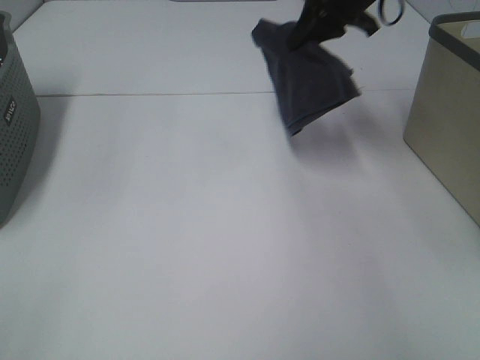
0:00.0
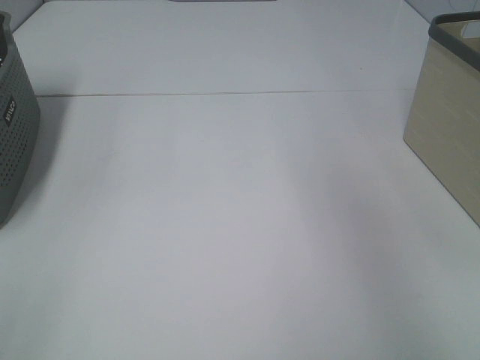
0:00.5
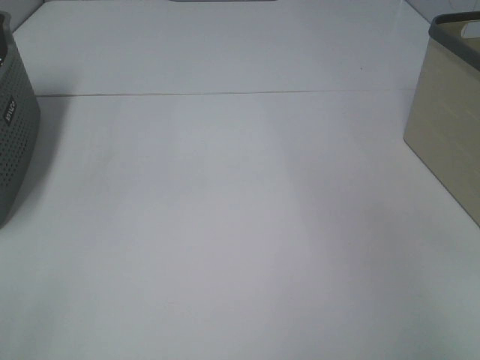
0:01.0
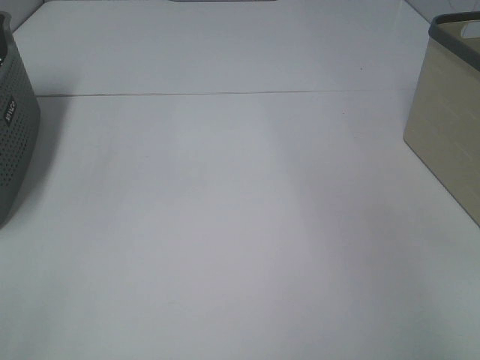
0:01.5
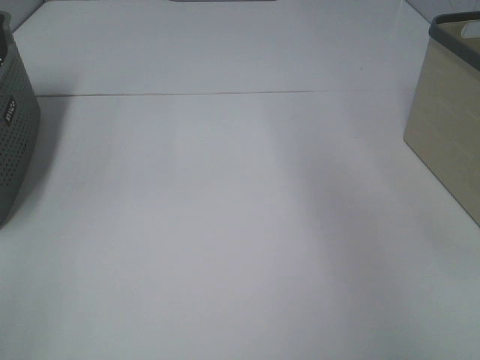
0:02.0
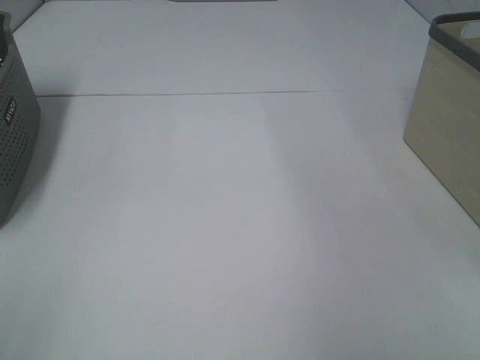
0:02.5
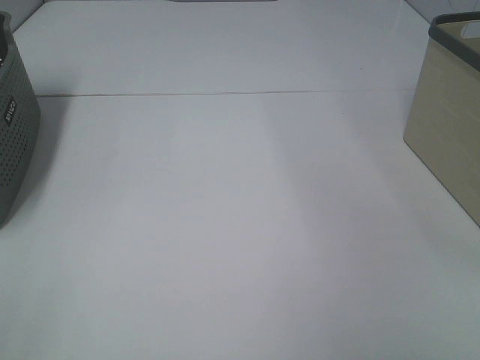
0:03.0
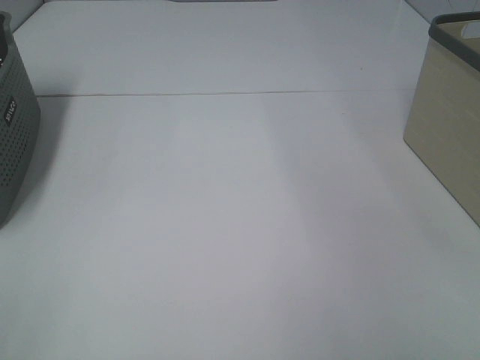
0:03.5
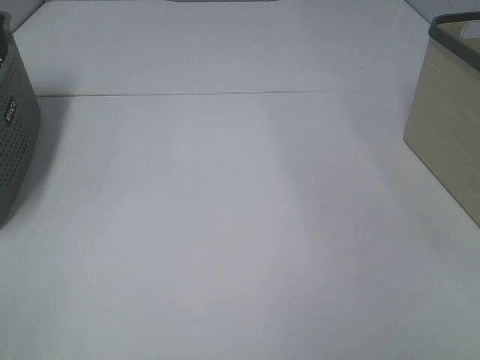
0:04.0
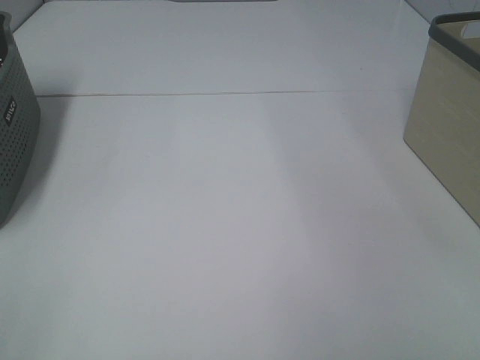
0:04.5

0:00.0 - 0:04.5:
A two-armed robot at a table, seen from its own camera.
0:00.0 - 0:02.0: The right gripper heads to the right, upward and backward, covering some 25 cm, and opens.
